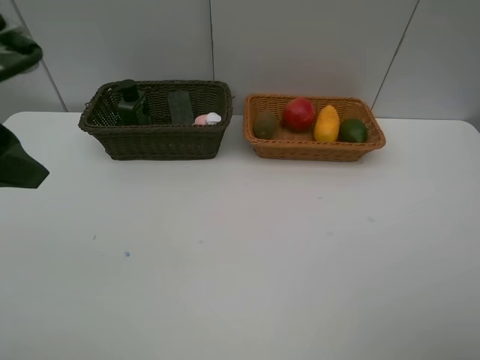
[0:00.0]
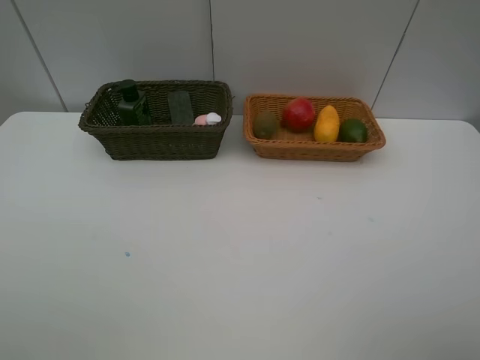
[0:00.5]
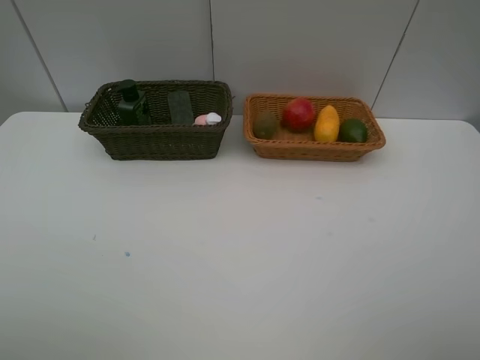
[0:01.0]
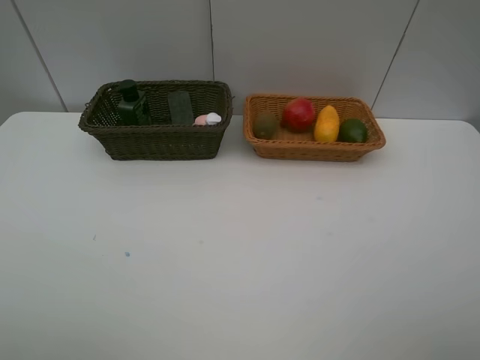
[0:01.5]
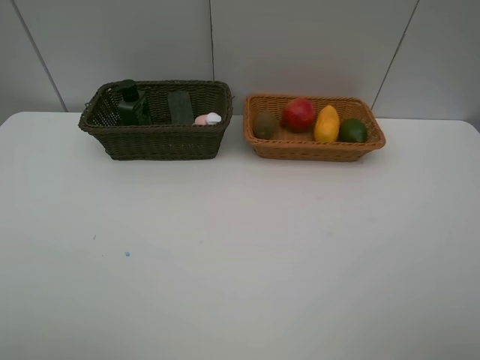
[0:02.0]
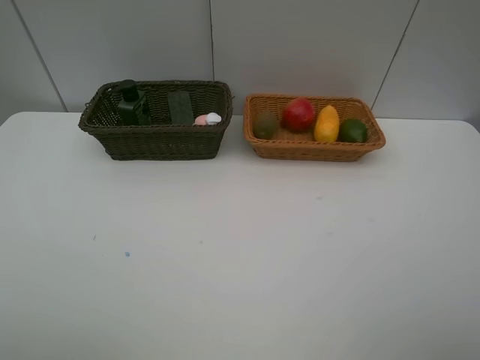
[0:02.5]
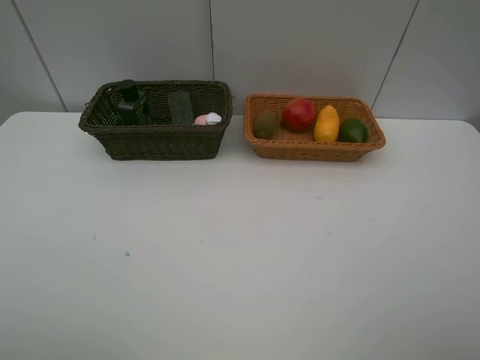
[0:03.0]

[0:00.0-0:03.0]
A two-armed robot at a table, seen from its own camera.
Task of the whole recording: Place multiple objects separately in different baskets.
0:00.0 to 0:01.5: The left gripper moves backward, approximately 15 cm.
0:01.5 to 0:03.0: Both grippers stay about where they are.
